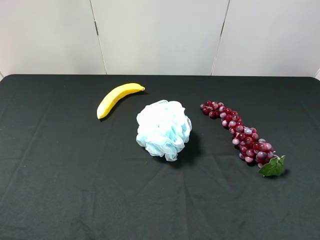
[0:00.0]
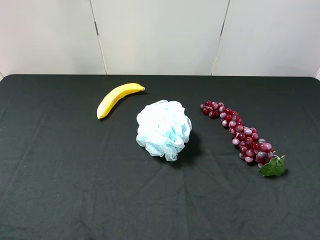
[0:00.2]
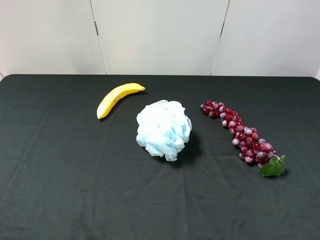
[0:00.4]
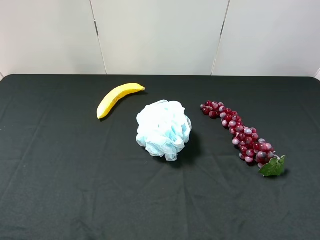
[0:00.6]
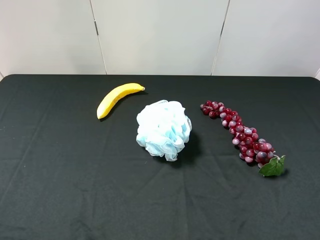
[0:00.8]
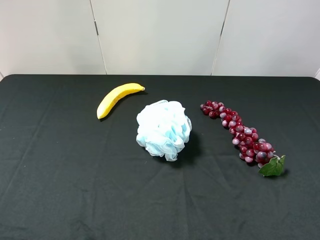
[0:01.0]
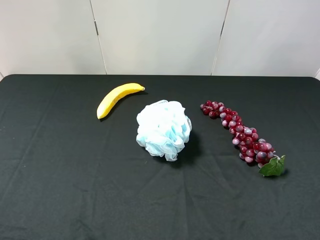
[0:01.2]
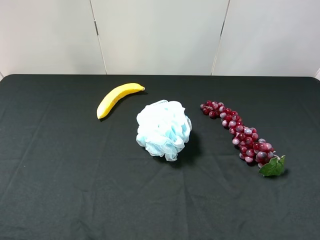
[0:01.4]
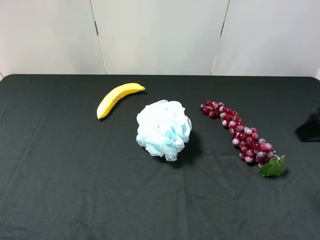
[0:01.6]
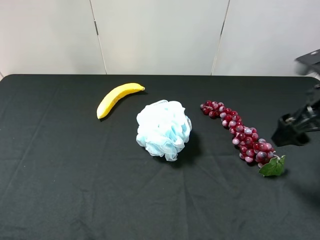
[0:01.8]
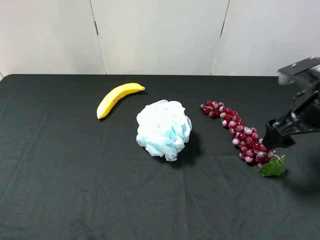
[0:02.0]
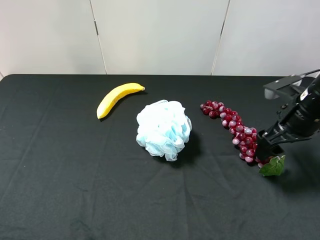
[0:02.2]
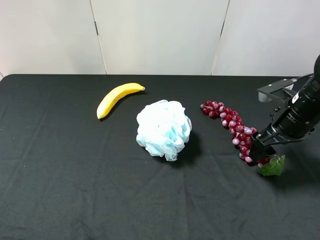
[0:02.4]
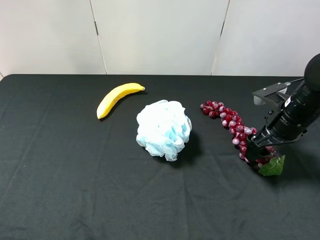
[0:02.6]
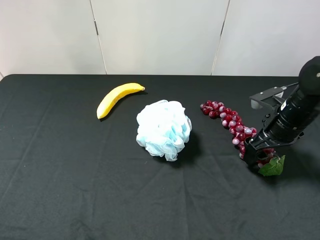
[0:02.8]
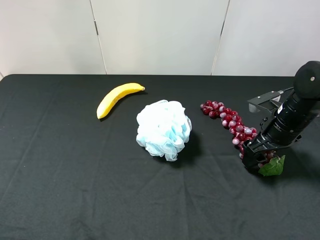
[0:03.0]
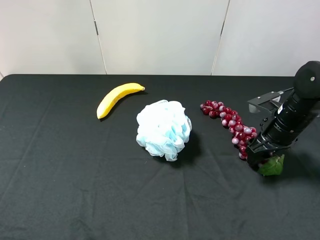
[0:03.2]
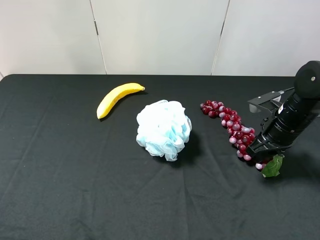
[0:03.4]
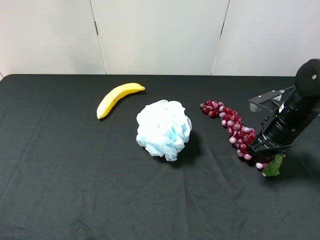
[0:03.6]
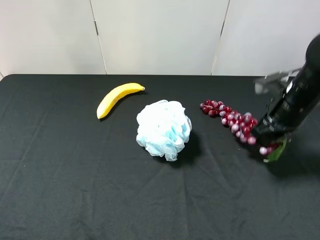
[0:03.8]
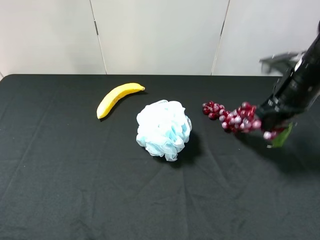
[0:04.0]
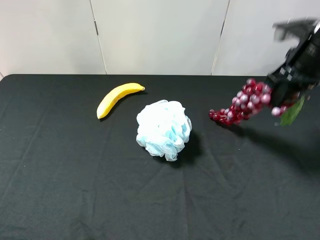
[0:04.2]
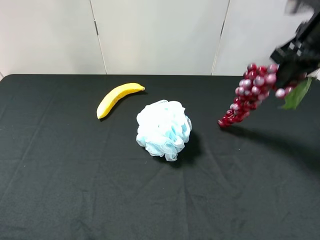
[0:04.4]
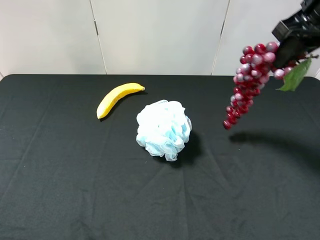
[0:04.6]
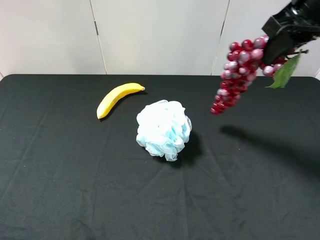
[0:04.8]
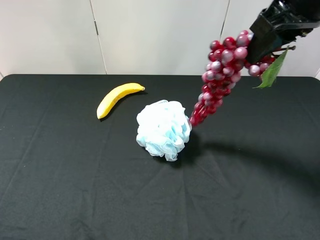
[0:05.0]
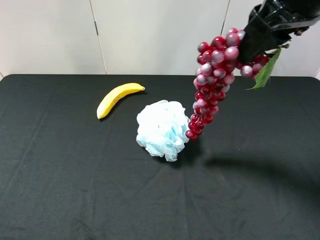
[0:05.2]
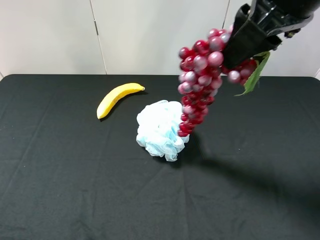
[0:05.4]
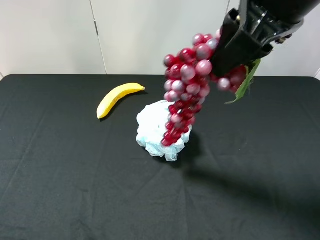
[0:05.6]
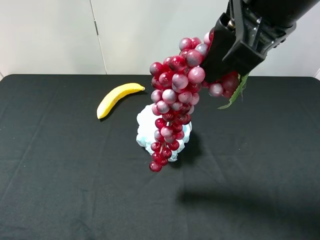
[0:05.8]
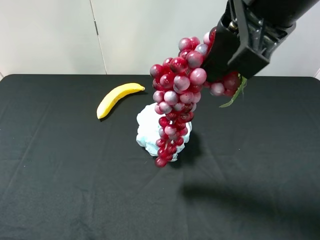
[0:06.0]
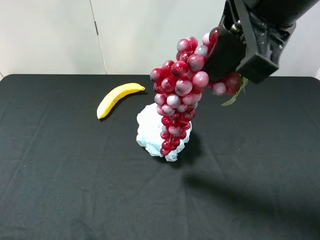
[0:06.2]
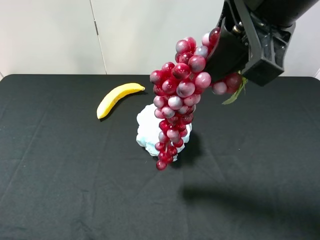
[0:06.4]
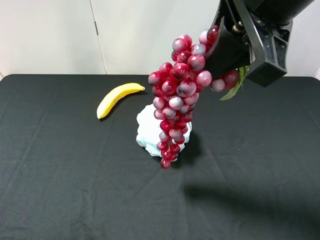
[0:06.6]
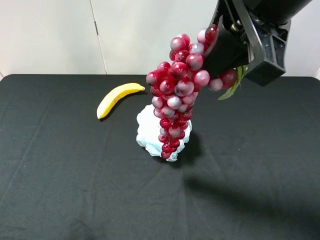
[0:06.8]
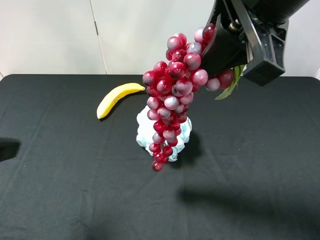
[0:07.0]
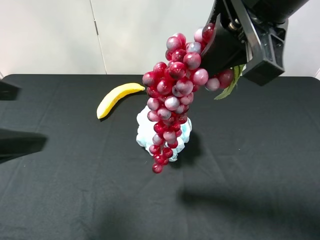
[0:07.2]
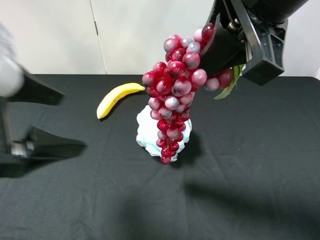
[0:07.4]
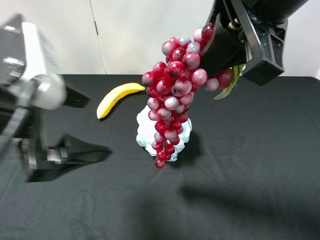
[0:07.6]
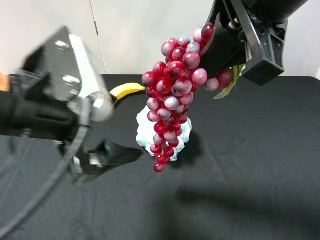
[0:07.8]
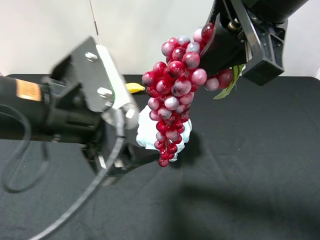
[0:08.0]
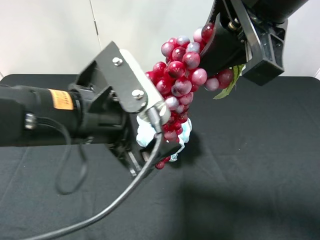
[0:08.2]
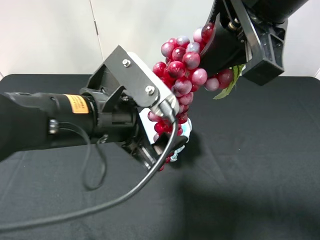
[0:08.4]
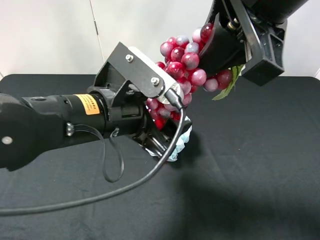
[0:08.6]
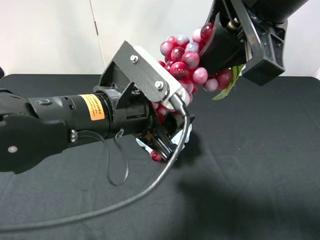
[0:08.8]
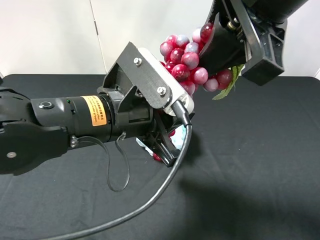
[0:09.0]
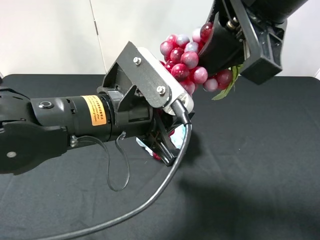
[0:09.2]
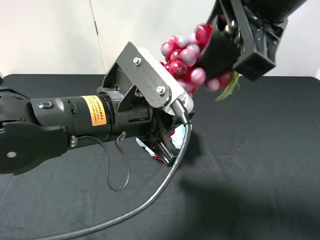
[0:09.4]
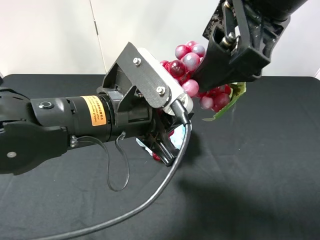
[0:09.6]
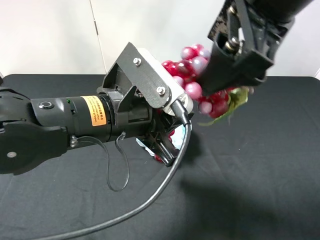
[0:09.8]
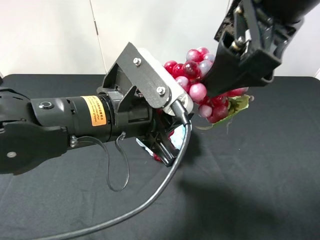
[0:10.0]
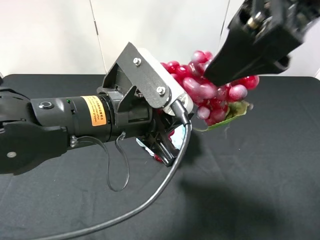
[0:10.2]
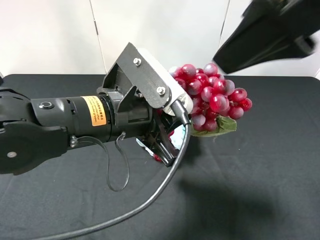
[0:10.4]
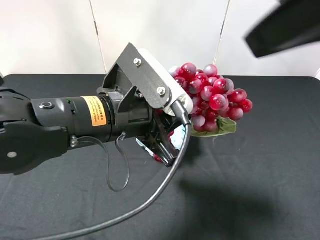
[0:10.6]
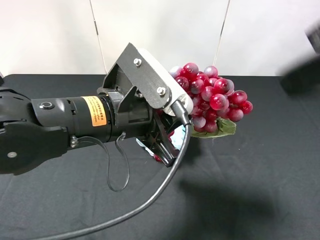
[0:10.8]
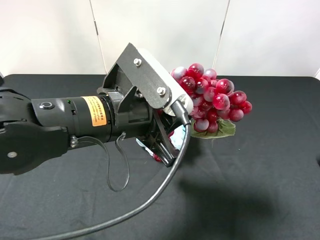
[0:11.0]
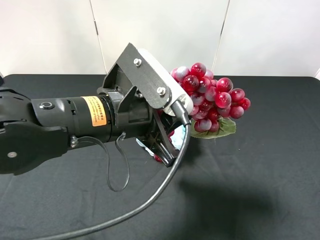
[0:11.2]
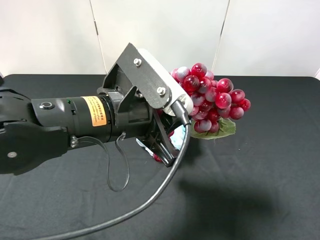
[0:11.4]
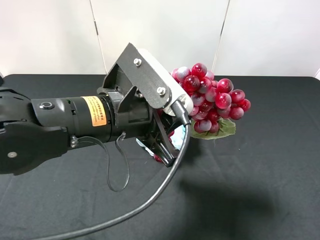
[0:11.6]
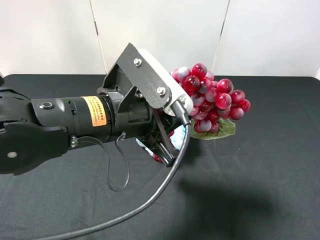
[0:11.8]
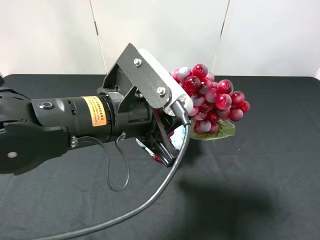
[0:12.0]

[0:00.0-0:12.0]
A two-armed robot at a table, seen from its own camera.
Task of the whole recording: use the right gripper to pick up the item and transfer it from the right gripper to the left gripper.
Step, 0:00.0 to 0:03.6: Use the right gripper to grab the grape on the right side of the table.
Step, 0:03.8 to 0:10.4: Pass the grape to the left gripper.
0:00.0 to 0:01.6: The right gripper moves forward, about 15 cm.
0:01.6 to 0:03.0: The right gripper moves downward and forward, roughly 20 cm.
0:03.0 to 0:04.4: The right gripper travels upward by about 20 cm, and closes its fingers.
0:04.4 to 0:06.0: The right gripper is displaced to the left, backward and upward by roughly 20 cm.
0:06.0 to 0:07.6: The left gripper travels to the right and forward by about 20 cm.
0:07.6 to 0:09.0: The left gripper is displaced to the right by approximately 10 cm, and closes its fingers.
0:09.0 to 0:10.4: The right gripper changes place by about 5 cm, and opens up.
0:10.4 to 0:12.0: The right gripper travels to the right, downward and backward by some 25 cm.

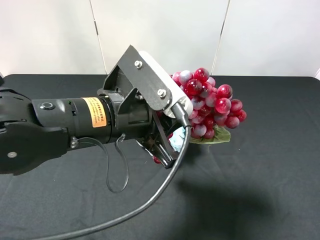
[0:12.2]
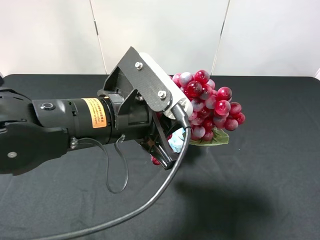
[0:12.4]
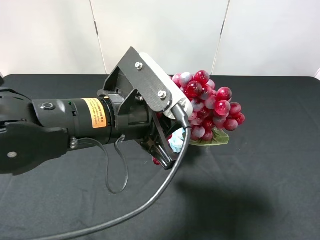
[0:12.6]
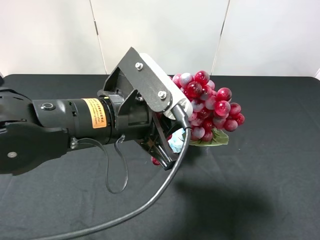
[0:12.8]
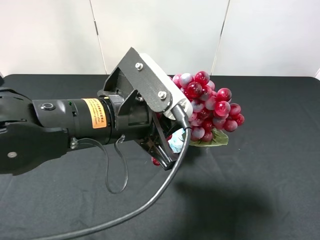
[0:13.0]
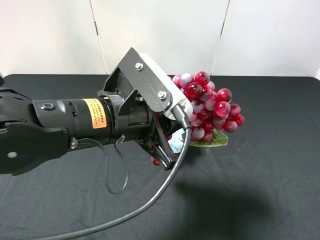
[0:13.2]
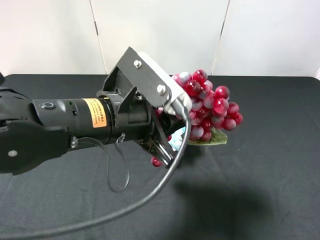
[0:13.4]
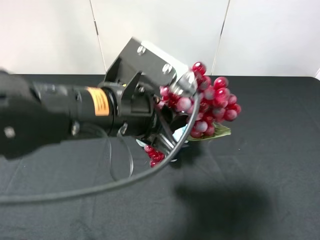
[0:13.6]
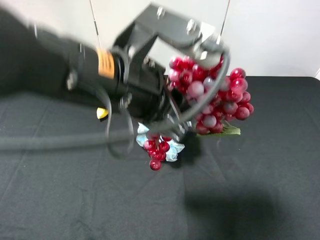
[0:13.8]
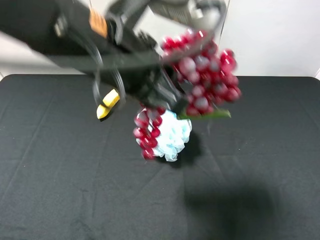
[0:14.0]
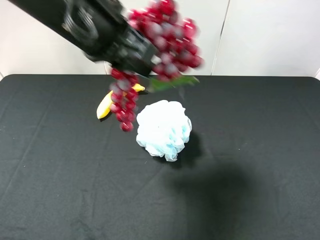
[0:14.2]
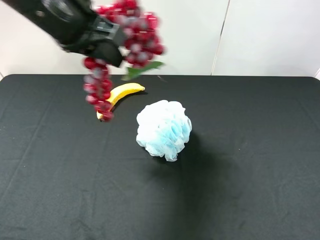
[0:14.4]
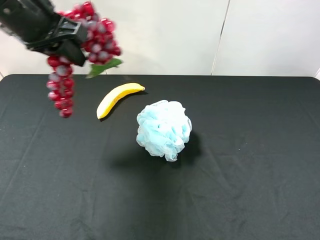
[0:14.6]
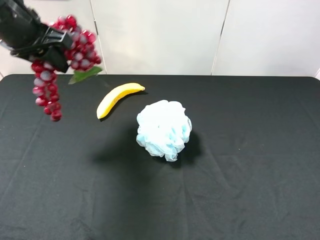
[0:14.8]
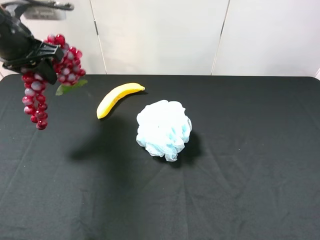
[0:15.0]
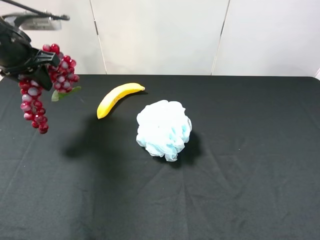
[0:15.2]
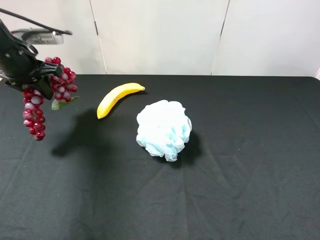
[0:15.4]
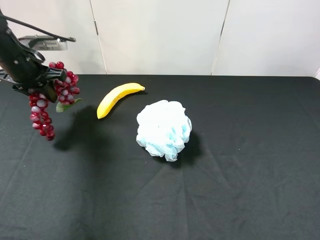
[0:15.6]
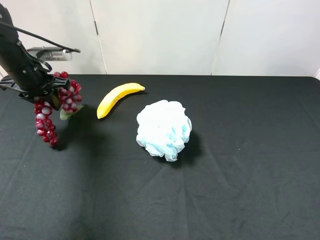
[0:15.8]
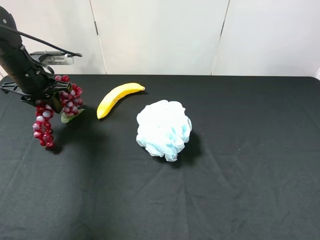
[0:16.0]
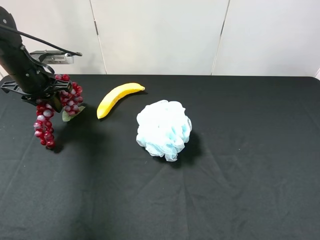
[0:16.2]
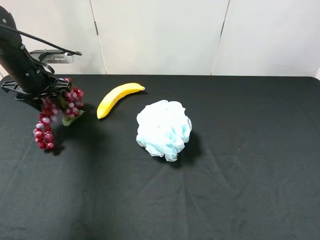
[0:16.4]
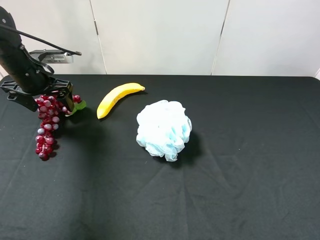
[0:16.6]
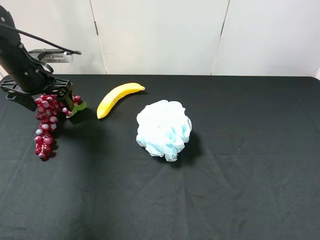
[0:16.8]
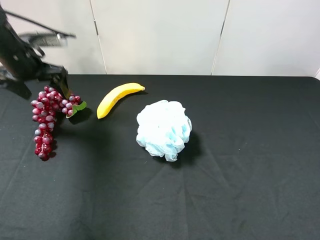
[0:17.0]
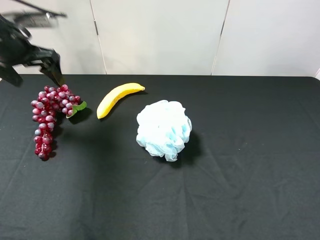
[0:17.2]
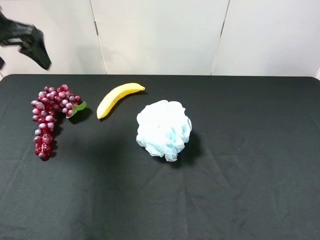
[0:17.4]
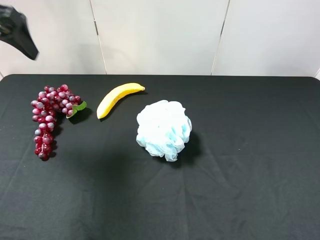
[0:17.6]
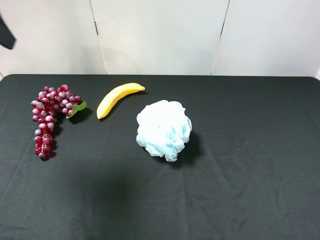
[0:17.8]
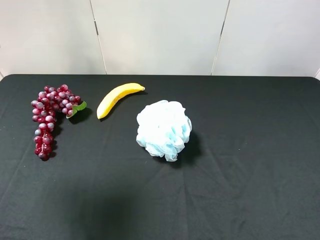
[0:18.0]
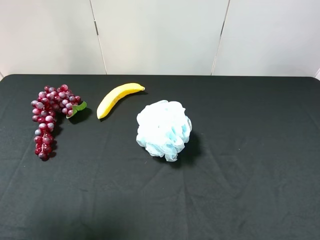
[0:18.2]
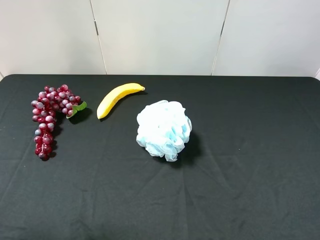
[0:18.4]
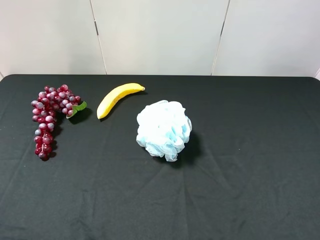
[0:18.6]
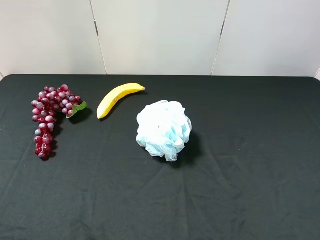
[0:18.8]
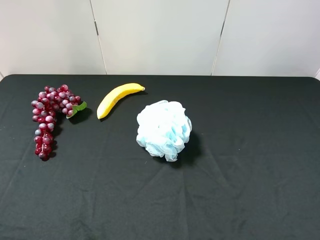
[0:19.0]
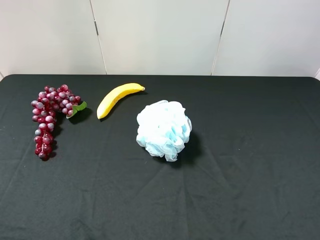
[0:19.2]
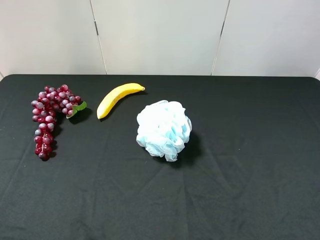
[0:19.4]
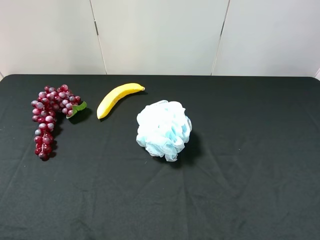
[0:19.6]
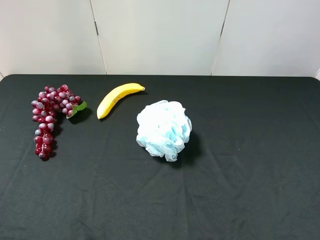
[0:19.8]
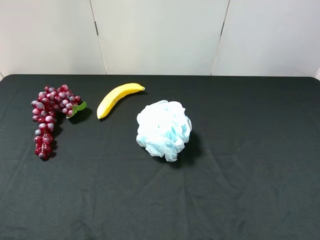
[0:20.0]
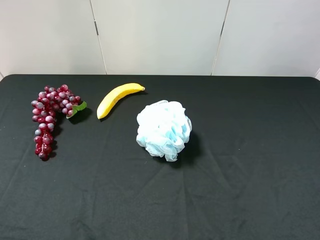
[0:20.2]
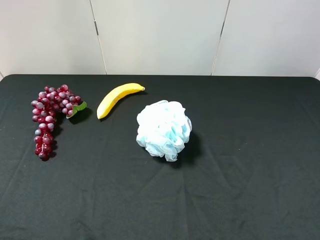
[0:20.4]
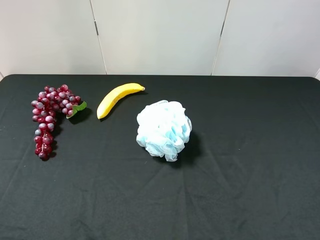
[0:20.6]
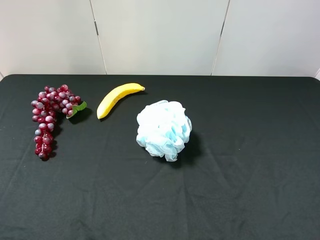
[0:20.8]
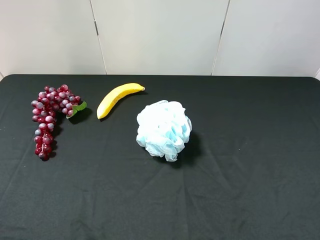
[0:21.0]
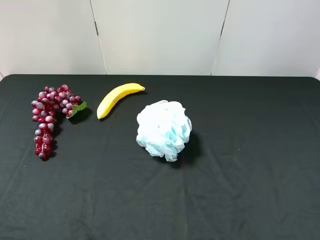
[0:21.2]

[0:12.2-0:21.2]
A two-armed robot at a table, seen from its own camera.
Task of the whole recording: use the right gripper to pick up the item and transfer it from the right gripper to the left gripper.
Step, 0:12.2 to 0:16.6: The left gripper places grape on the left side of the table.
0:12.2 to 0:13.8: The left gripper heads upward, covering approximately 5 cm.
0:13.8 to 0:15.2: The left gripper heads to the left and forward, covering roughly 30 cm.
0:15.2 to 0:16.6: The left gripper goes roughly 10 cm downward, and opens up.
0:16.6 to 0:18.2: The left gripper moves backward and upward, roughly 30 cm.
0:18.2 to 0:19.8: The left gripper is displaced backward and downward by roughly 15 cm.
0:19.8 to 0:21.2: Both grippers stay put.
